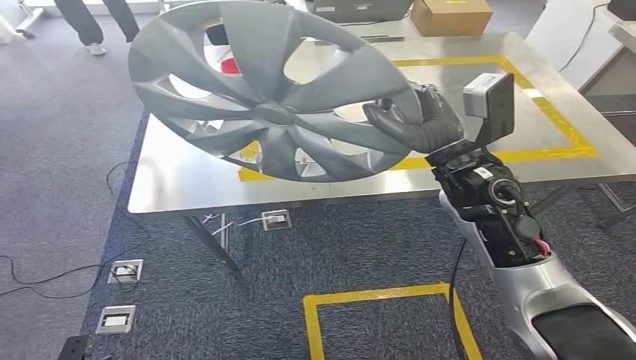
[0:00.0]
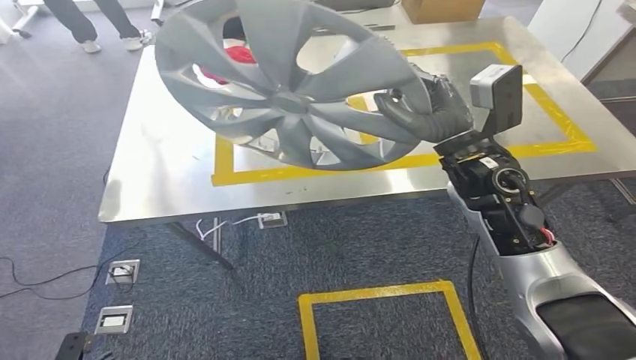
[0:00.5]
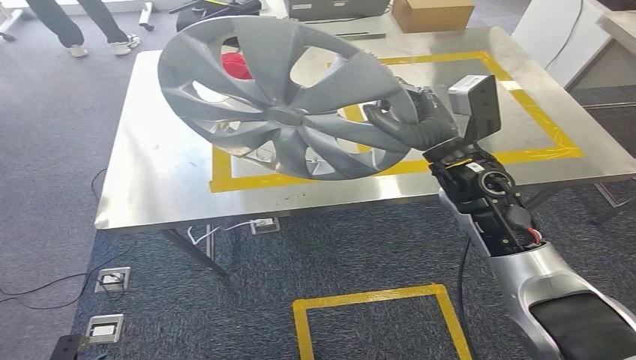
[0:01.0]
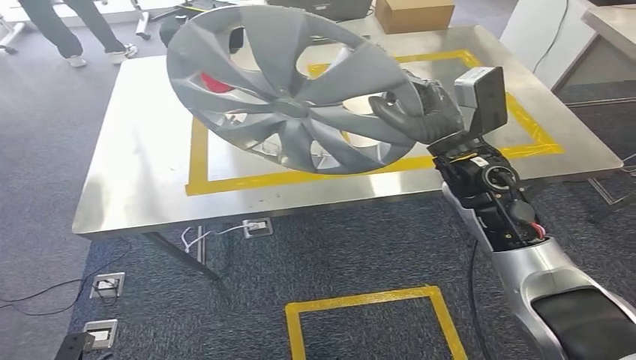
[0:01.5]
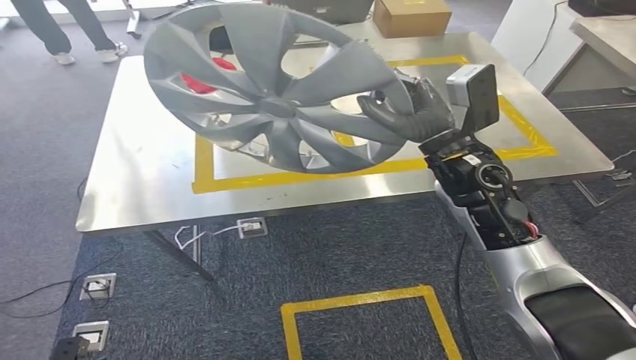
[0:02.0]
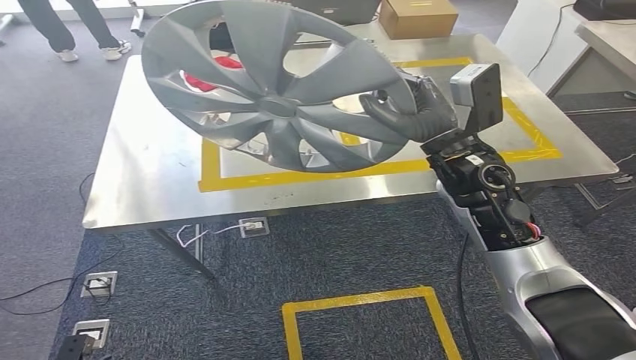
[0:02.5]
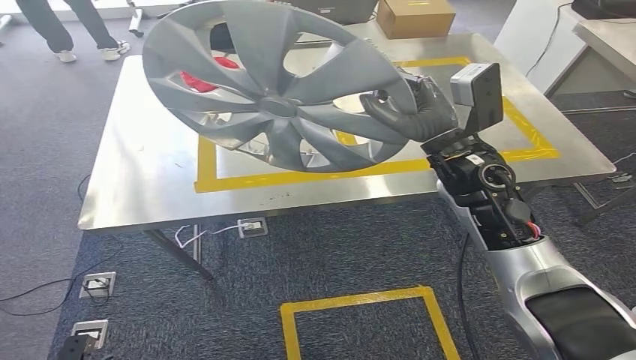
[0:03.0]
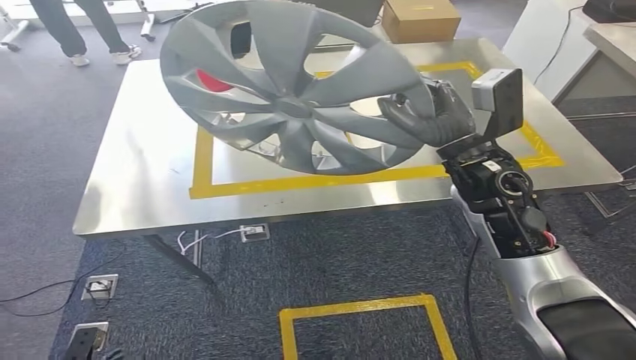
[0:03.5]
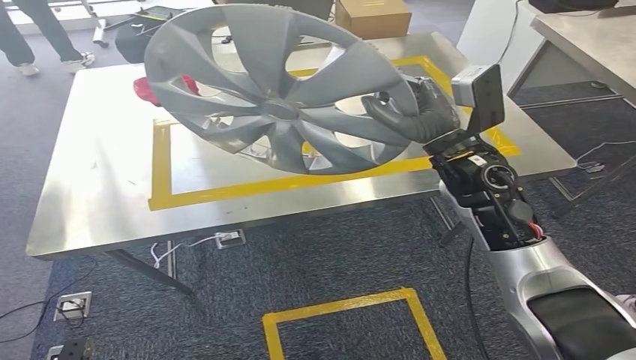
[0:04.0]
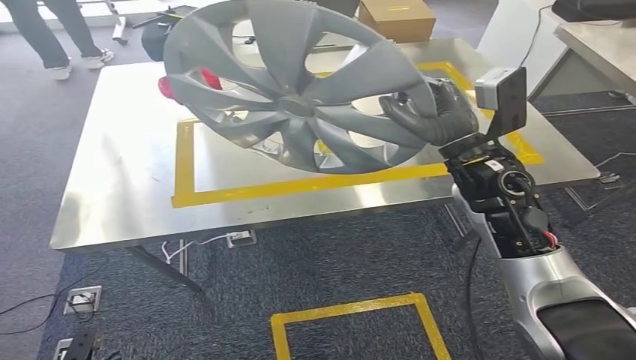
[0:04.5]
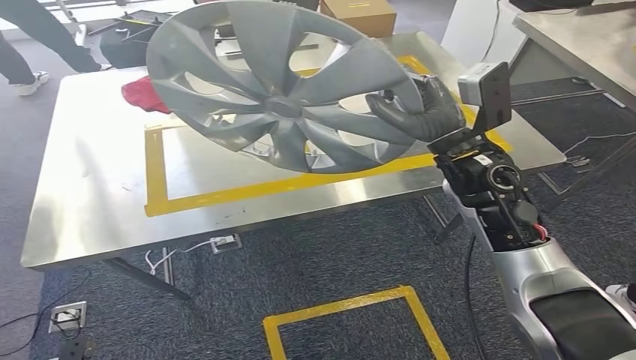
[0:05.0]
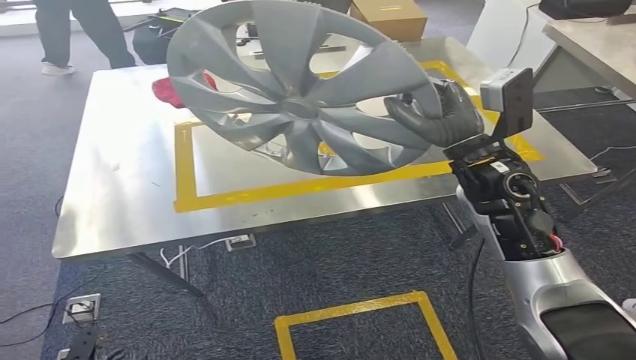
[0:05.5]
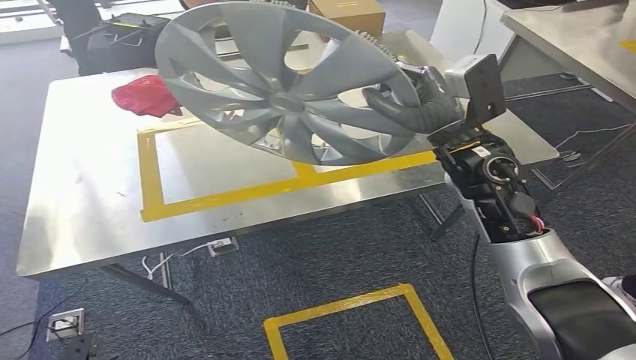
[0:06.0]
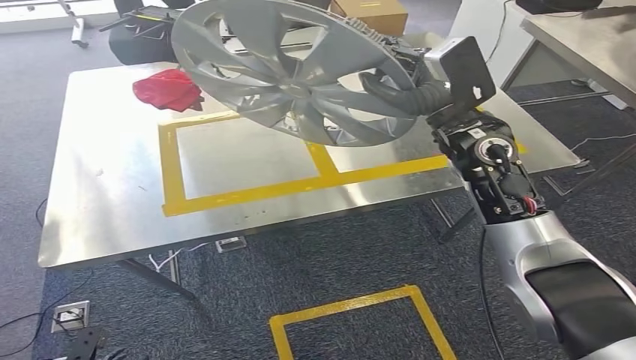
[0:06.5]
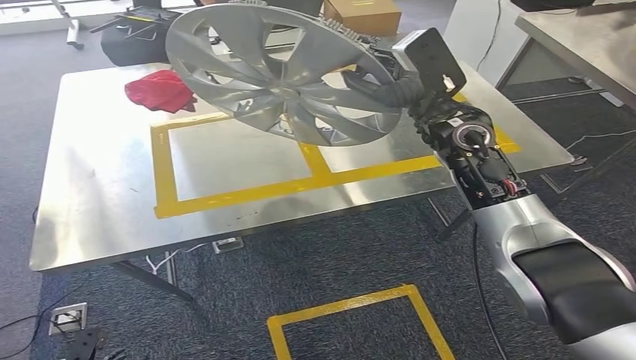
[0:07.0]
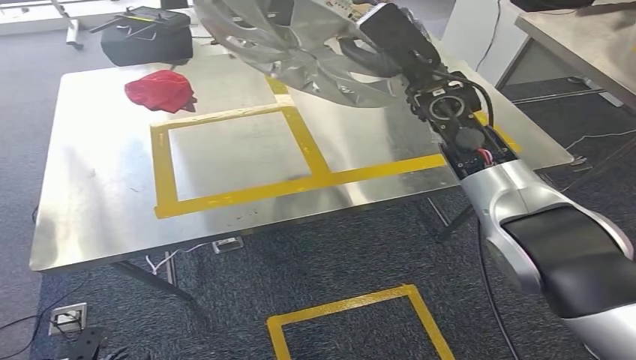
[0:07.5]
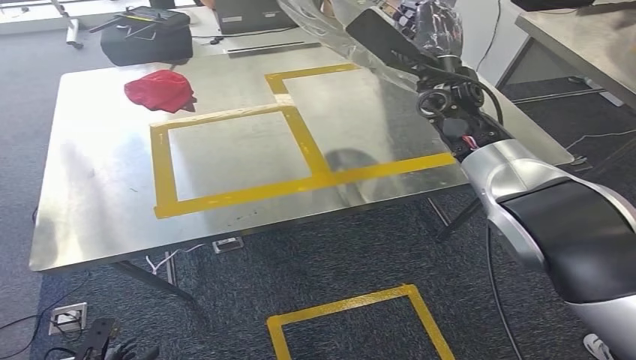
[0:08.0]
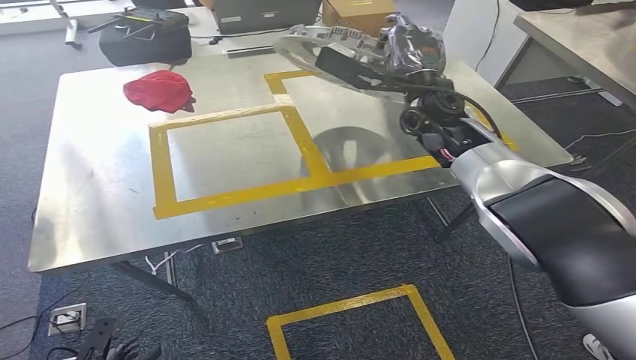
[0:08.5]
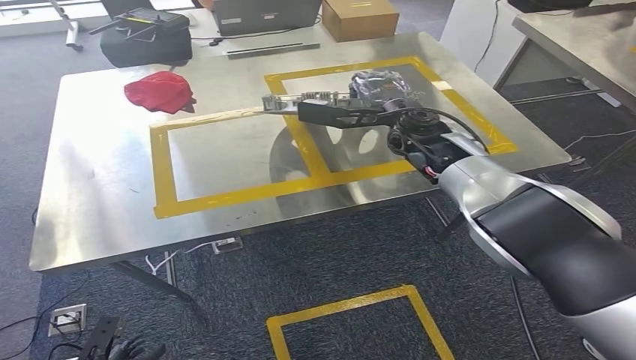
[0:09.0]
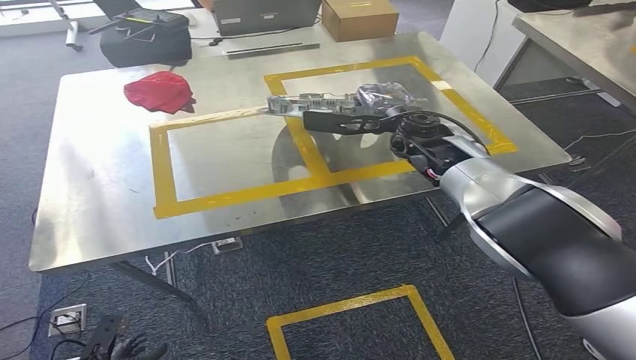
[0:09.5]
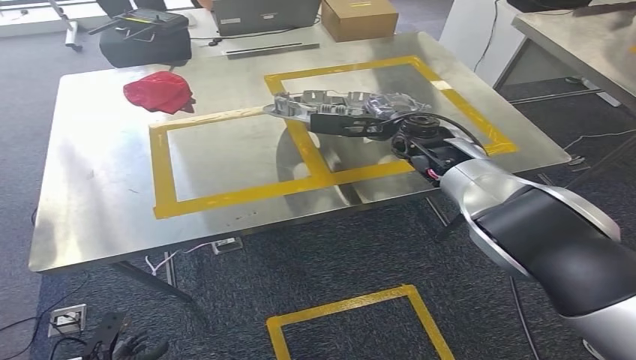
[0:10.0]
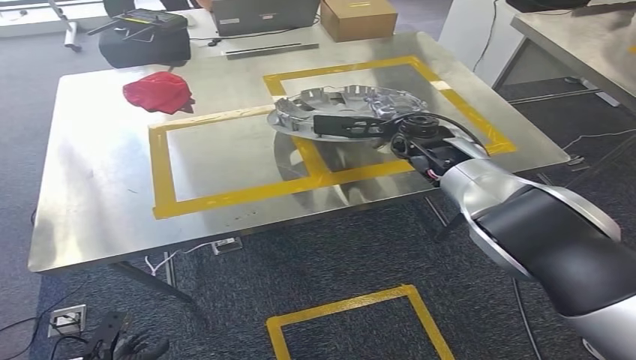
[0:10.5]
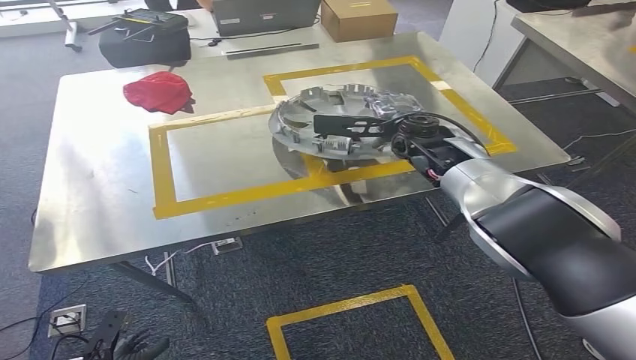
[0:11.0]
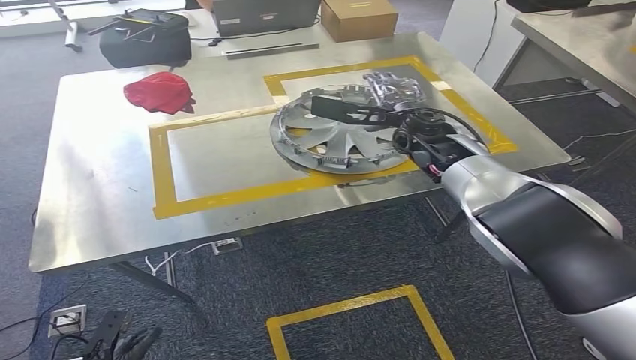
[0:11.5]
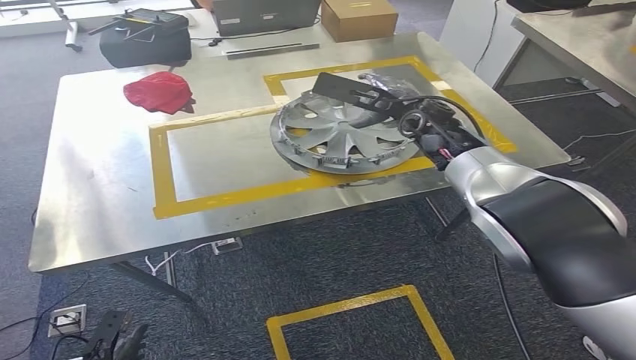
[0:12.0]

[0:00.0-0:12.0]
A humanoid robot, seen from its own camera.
Step, 0:00.0 to 0:06.0: Bring the small component to the front of the workbench.

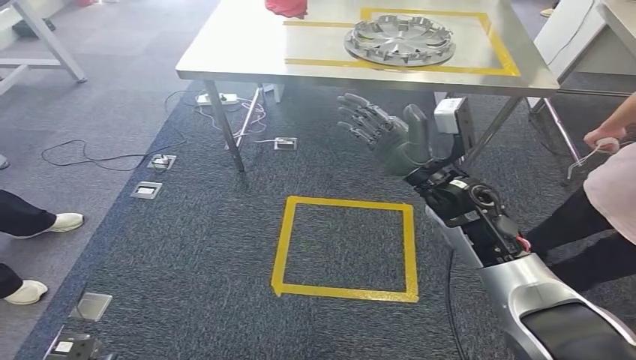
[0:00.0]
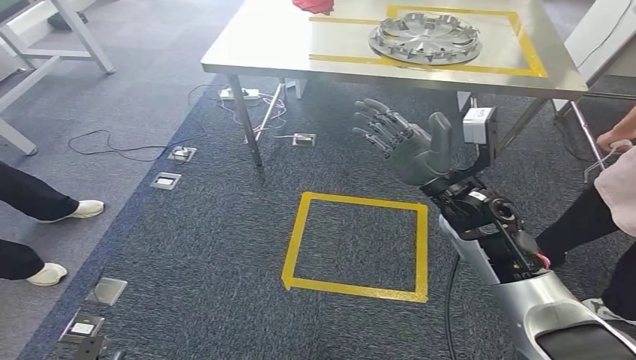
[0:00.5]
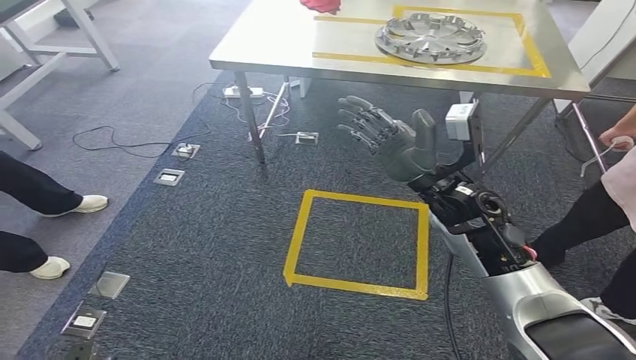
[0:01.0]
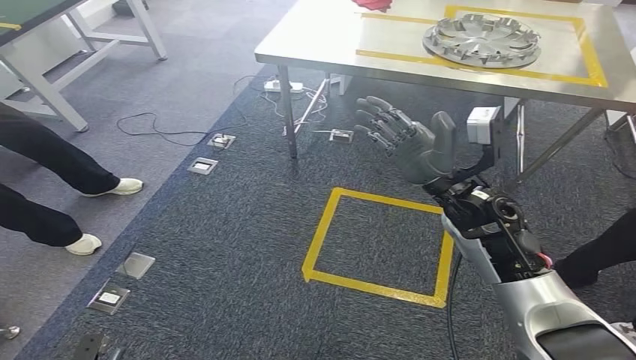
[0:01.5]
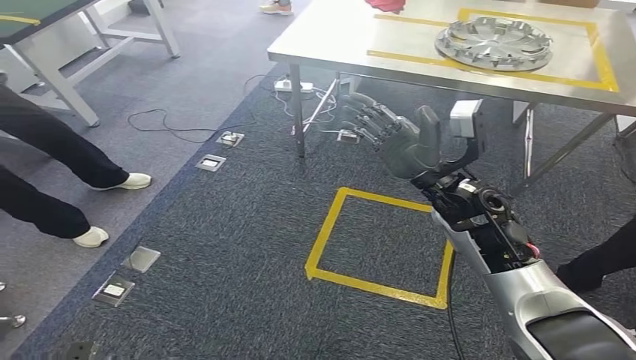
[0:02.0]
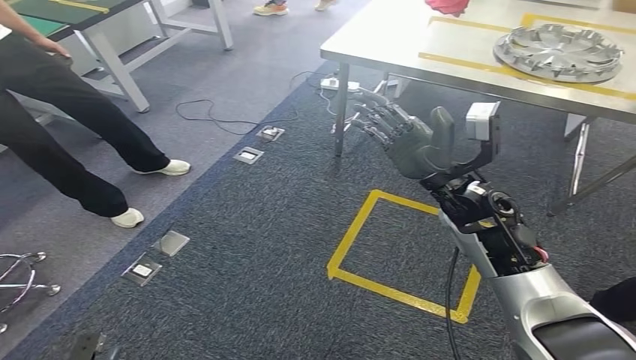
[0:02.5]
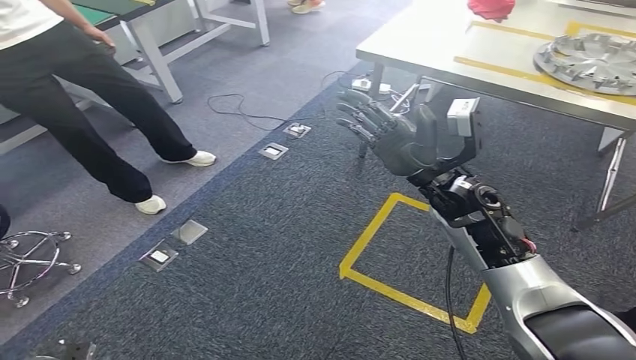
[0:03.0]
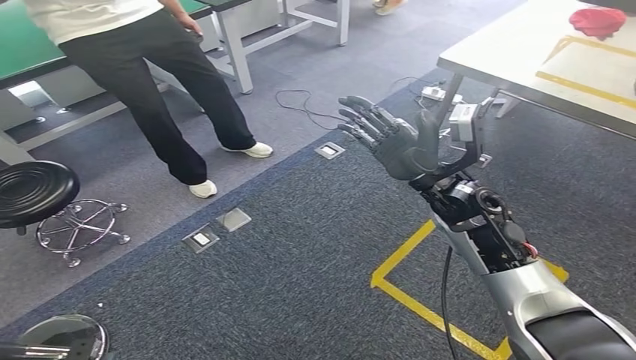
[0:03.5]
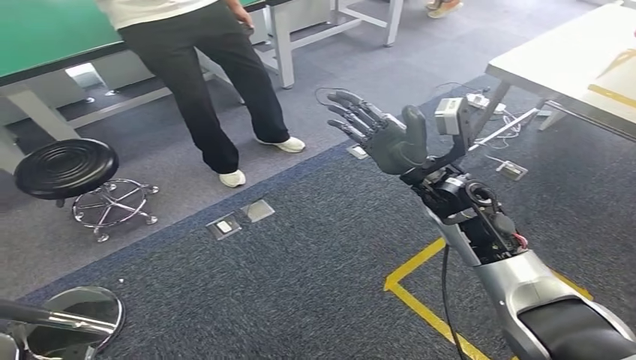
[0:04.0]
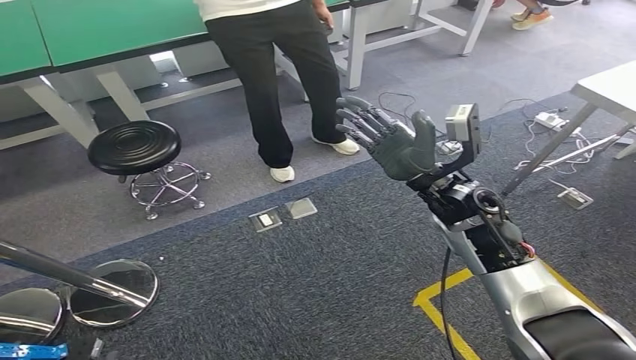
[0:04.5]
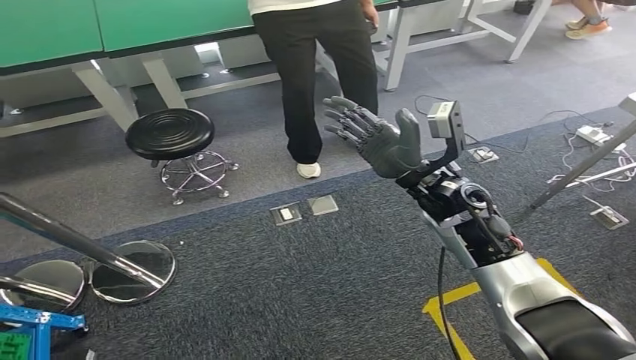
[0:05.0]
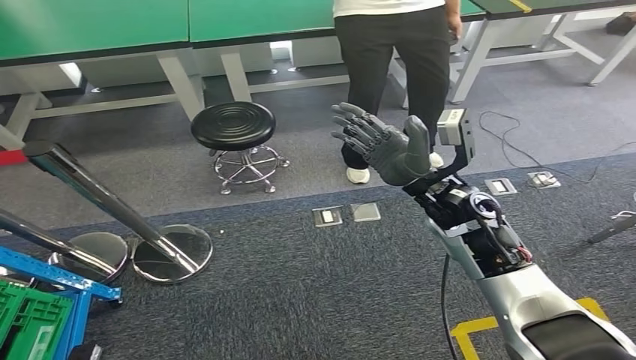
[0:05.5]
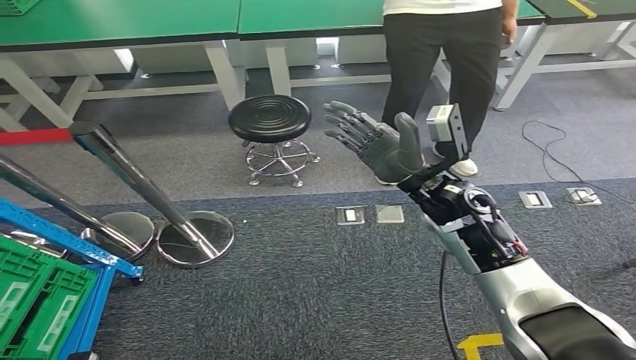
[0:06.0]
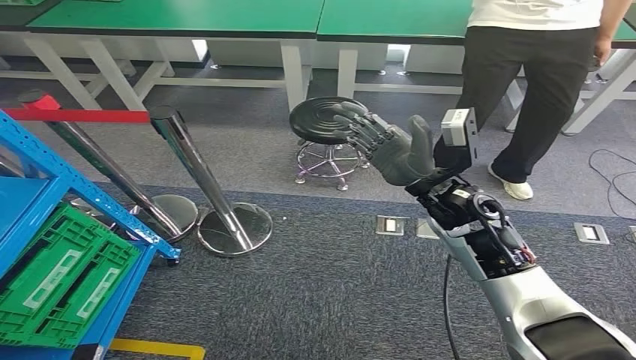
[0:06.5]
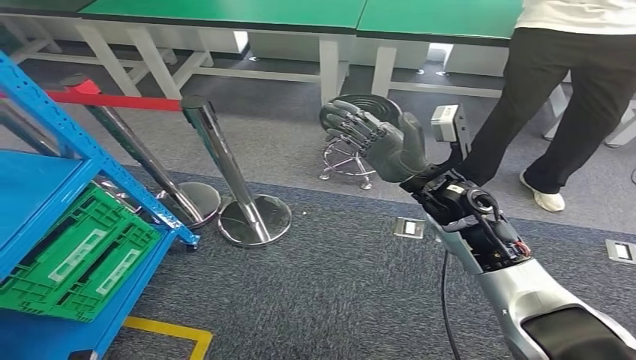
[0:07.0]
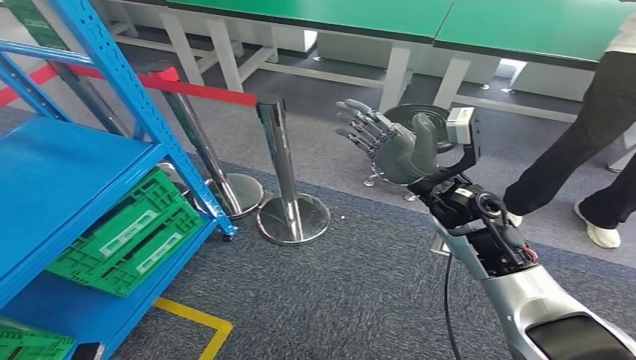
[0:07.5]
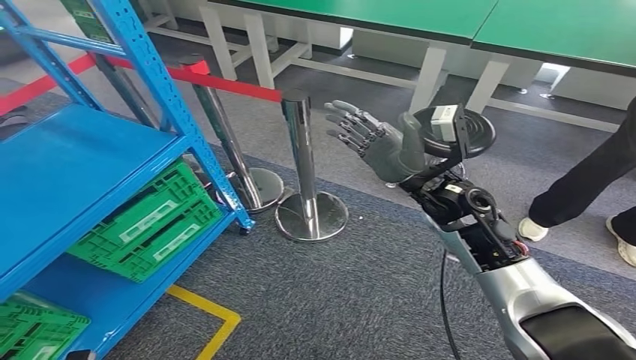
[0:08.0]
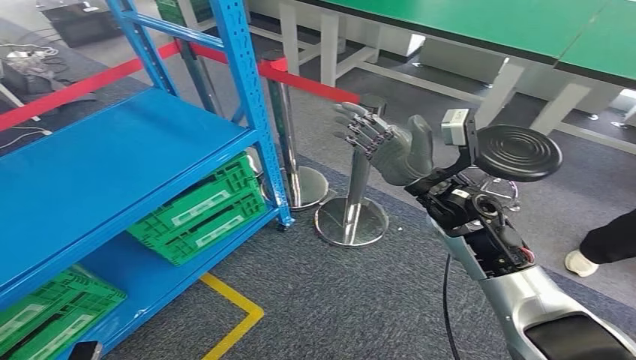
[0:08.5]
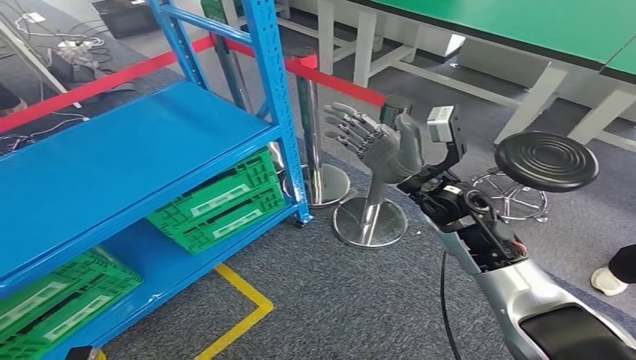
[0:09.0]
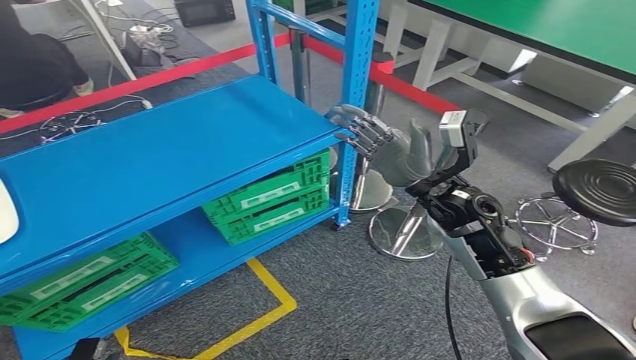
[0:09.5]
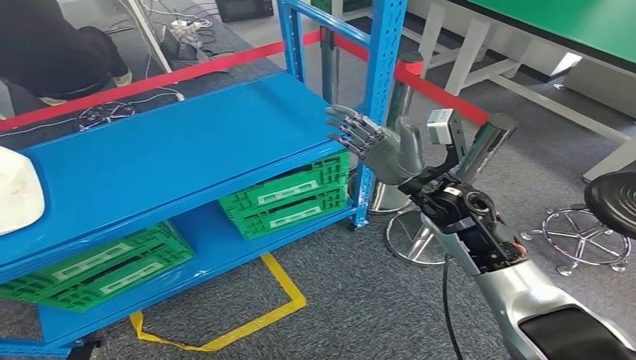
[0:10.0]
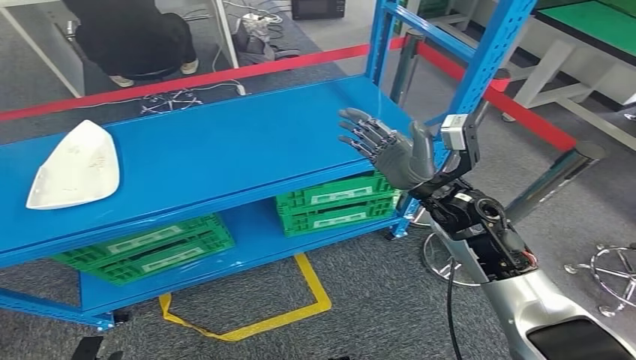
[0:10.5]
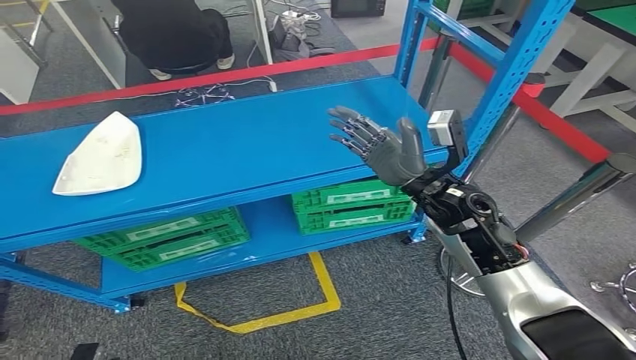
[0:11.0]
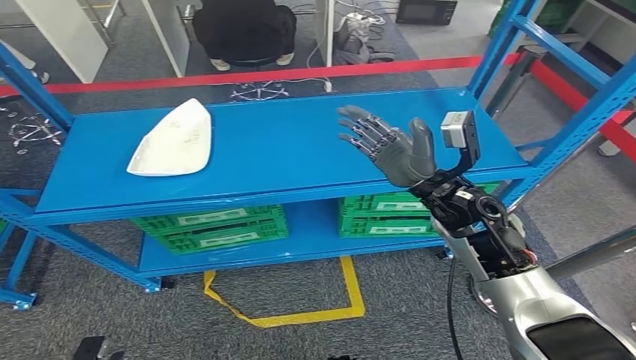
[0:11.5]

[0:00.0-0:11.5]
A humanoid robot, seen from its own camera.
Step, 0:00.0 to 0:11.5: Move to the initial position of the workbench.
